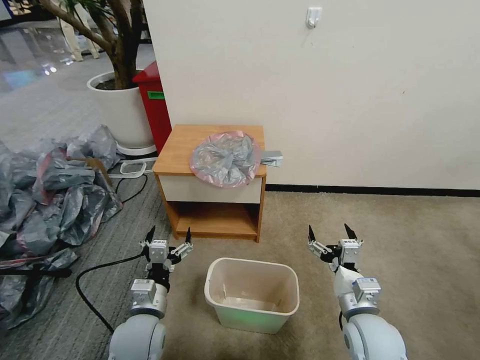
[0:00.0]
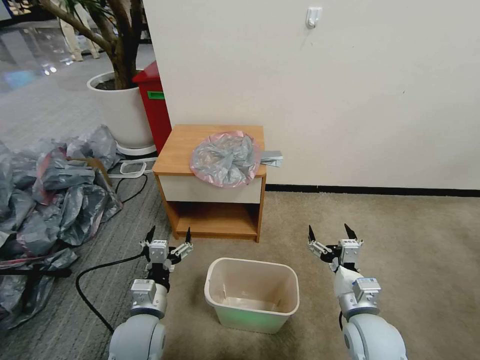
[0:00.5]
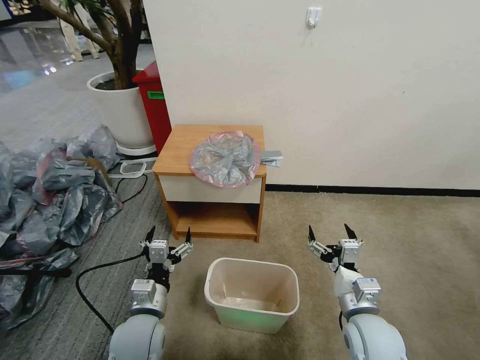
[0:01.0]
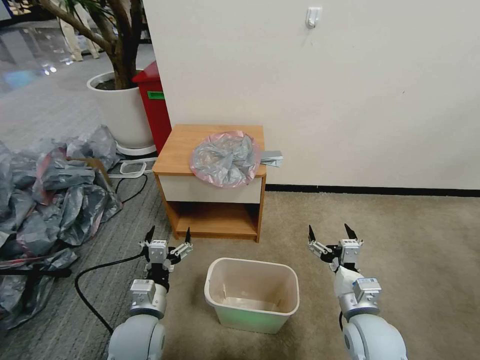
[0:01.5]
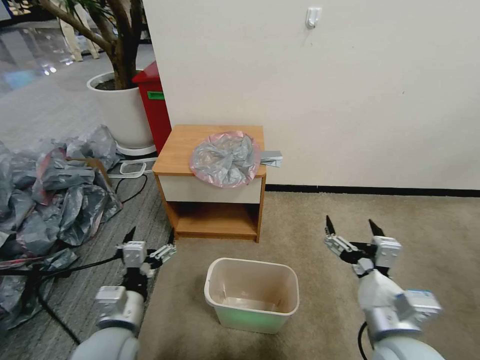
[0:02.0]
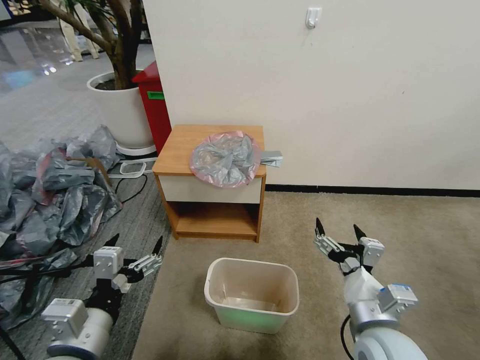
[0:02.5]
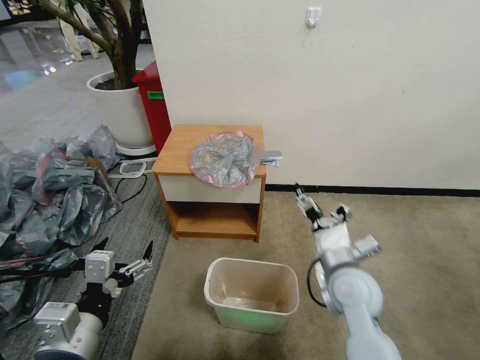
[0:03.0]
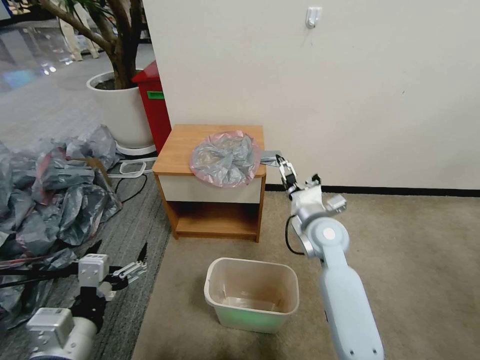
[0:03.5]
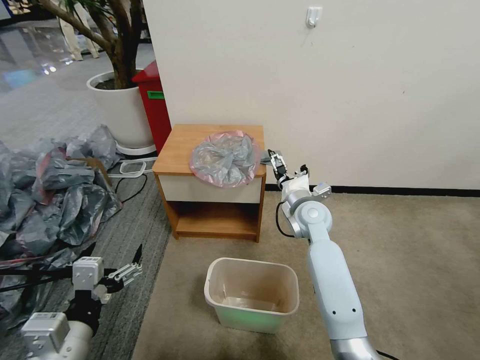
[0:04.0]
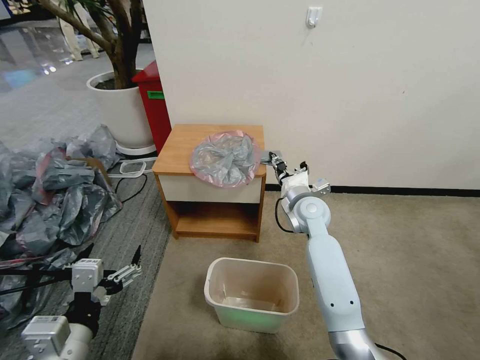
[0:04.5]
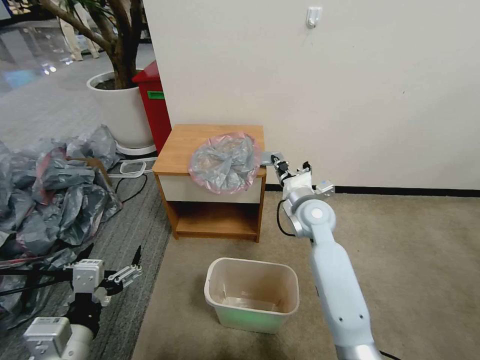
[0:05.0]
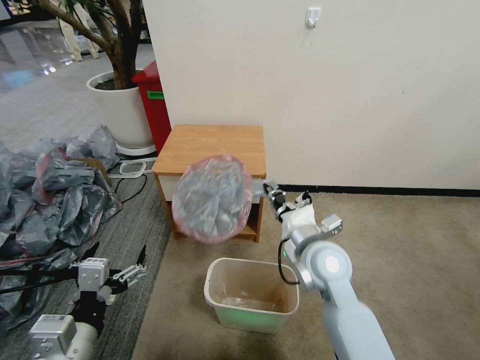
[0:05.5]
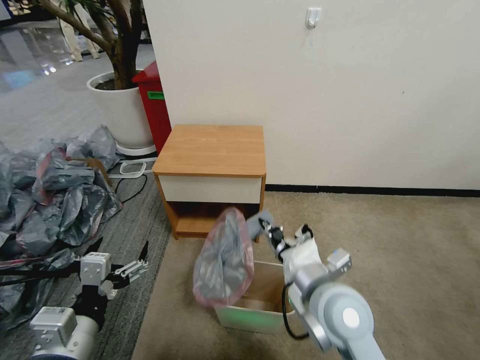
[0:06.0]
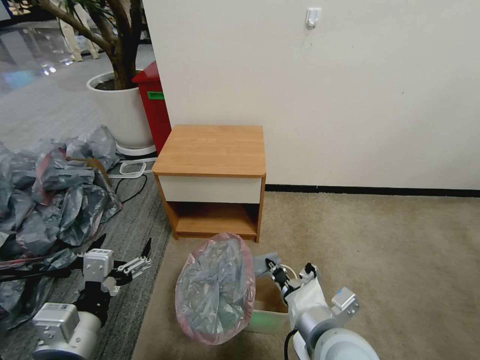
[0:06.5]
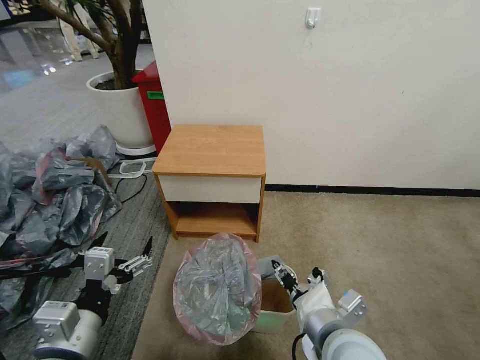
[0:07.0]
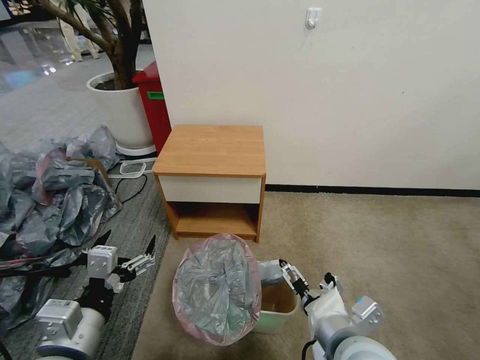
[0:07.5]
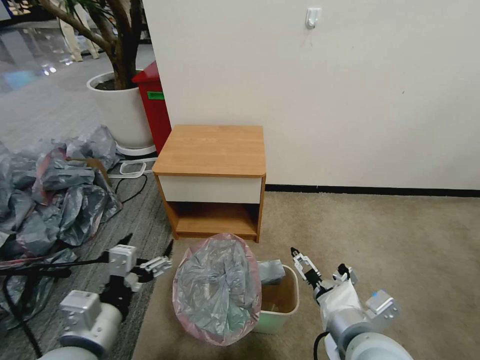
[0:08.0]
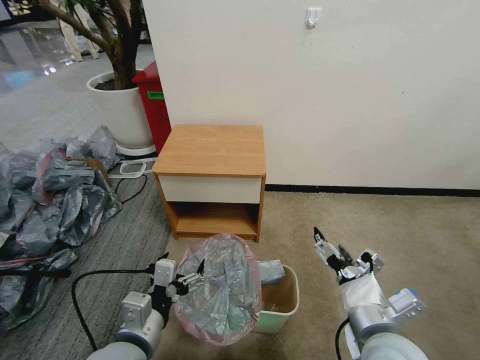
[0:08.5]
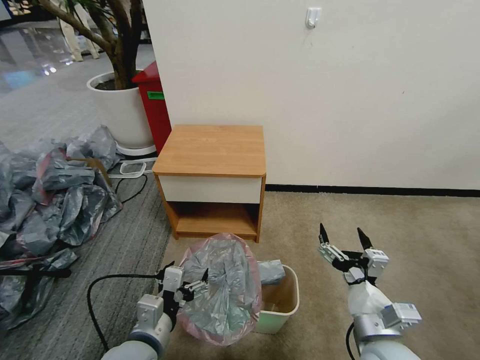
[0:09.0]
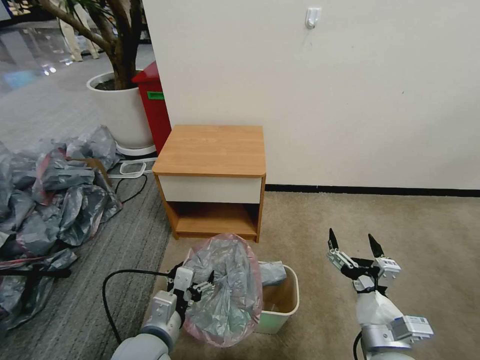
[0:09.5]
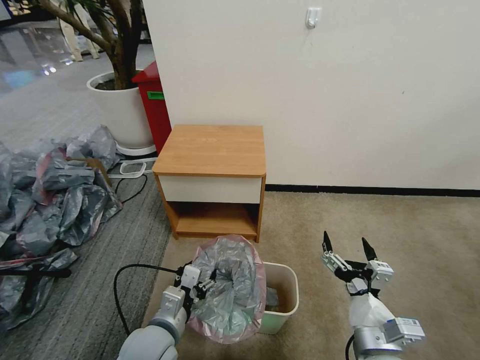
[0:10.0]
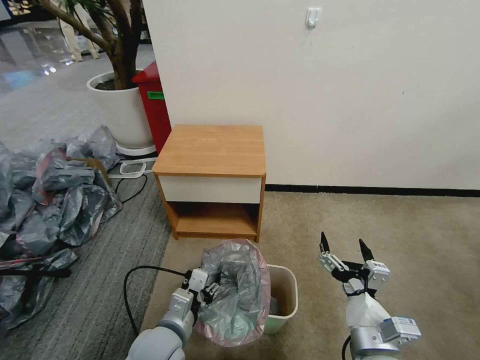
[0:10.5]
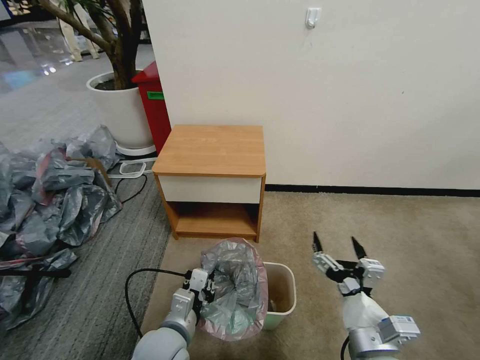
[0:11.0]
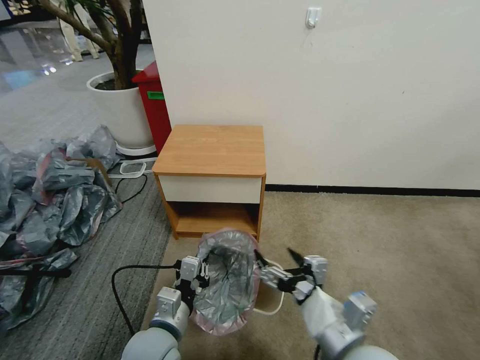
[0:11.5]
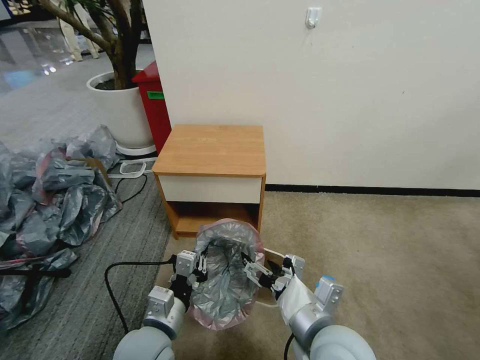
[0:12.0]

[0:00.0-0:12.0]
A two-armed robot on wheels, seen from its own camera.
Task of the whole recording: Pick up the garbage bag from the table and place it over the trash can.
0:02.0 to 0:04.0: The left gripper heads upward and backward, covering approximately 10 cm; the right gripper travels forward by about 30 cm.
0:04.0 to 0:06.0: The right gripper goes roughly 25 cm backward, and closes up.
0:06.0 to 0:08.0: The right gripper is displaced backward by some 5 cm, and opens up.
0:08.0 to 0:10.0: The right gripper travels downward by roughly 10 cm, while the left gripper travels downward, to the right and forward by approximately 15 cm.
0:10.0 to 0:12.0: The right gripper shifts approximately 10 cm to the left and upward. Meanwhile the left gripper closes its fingers.

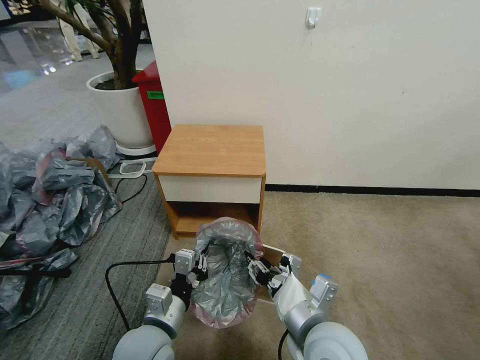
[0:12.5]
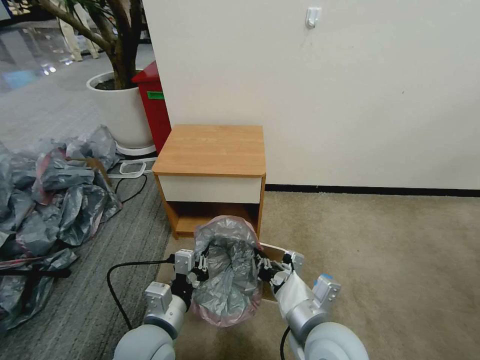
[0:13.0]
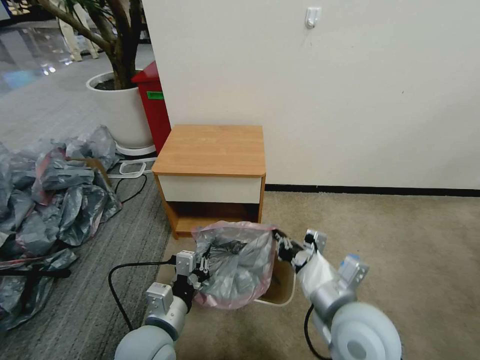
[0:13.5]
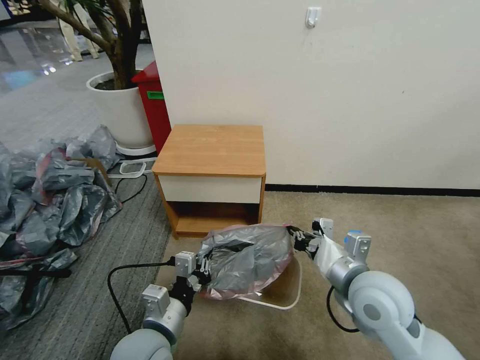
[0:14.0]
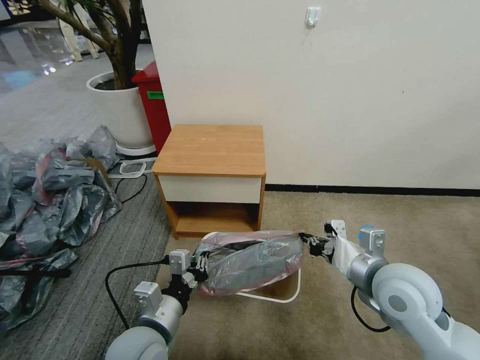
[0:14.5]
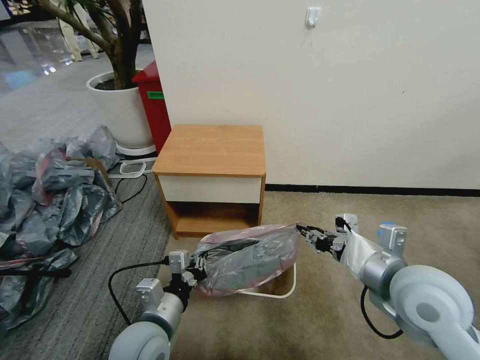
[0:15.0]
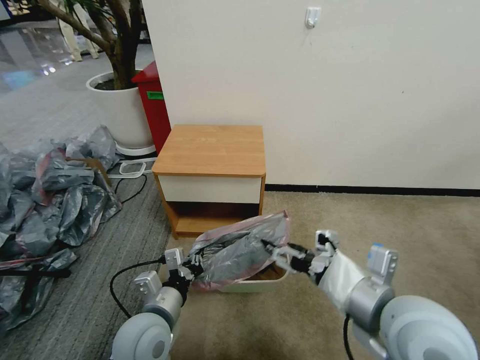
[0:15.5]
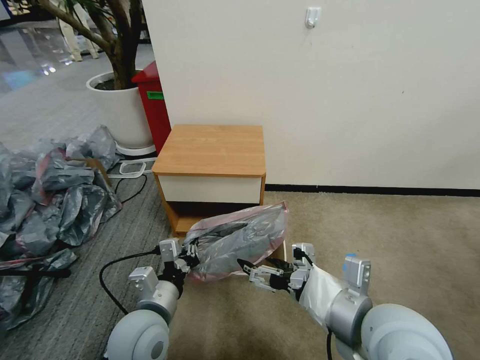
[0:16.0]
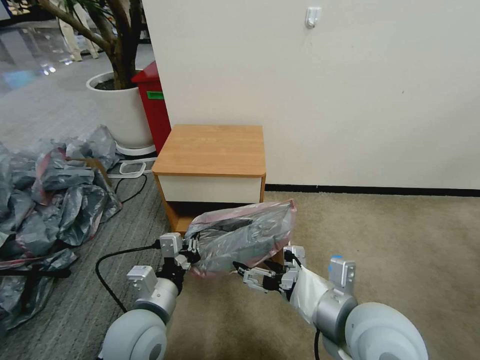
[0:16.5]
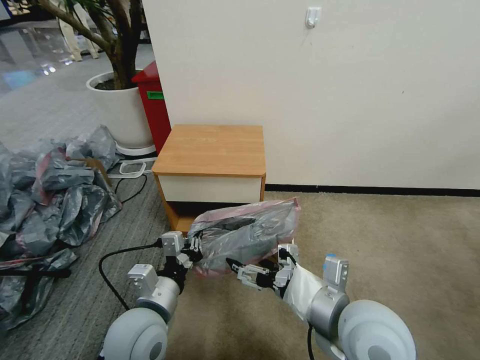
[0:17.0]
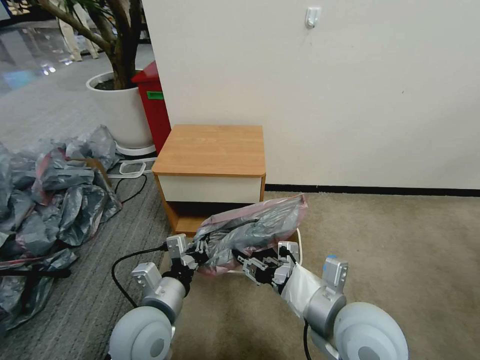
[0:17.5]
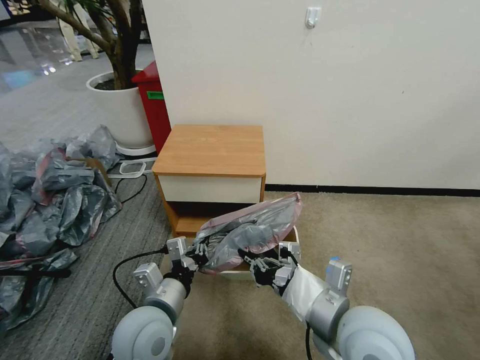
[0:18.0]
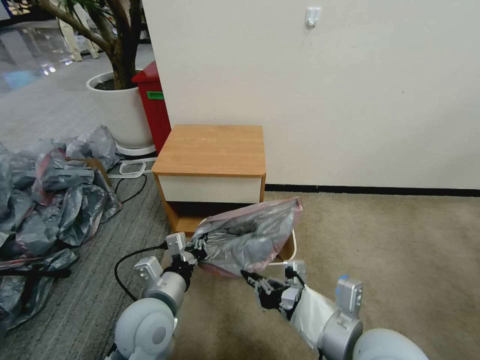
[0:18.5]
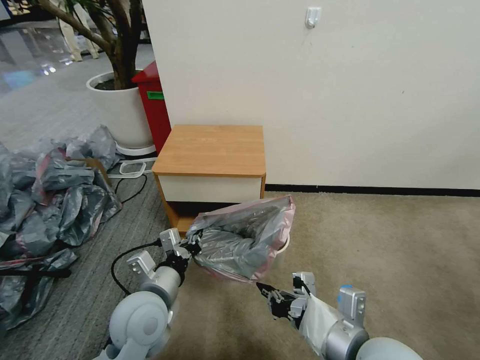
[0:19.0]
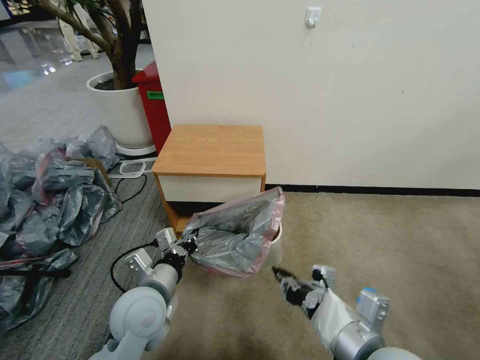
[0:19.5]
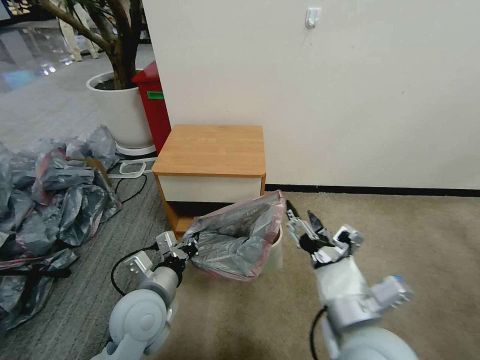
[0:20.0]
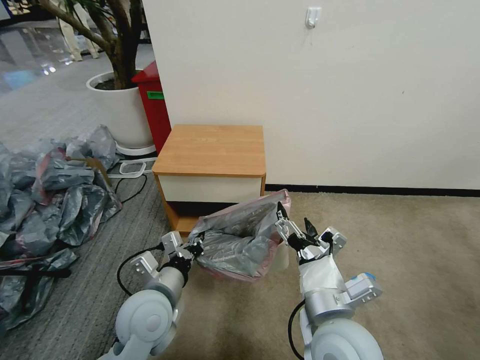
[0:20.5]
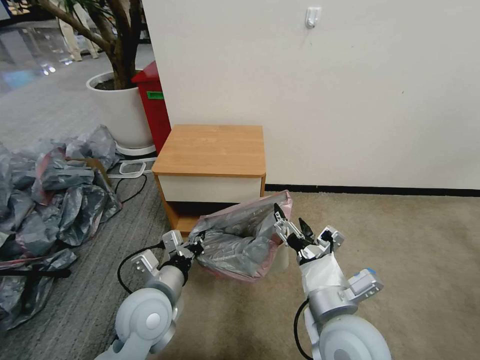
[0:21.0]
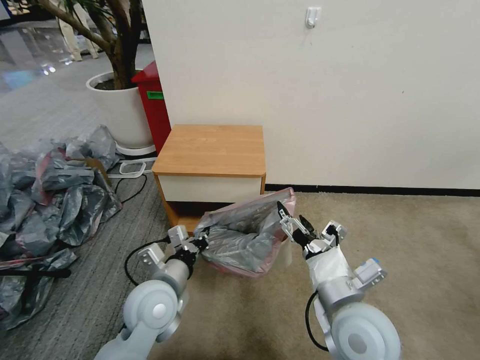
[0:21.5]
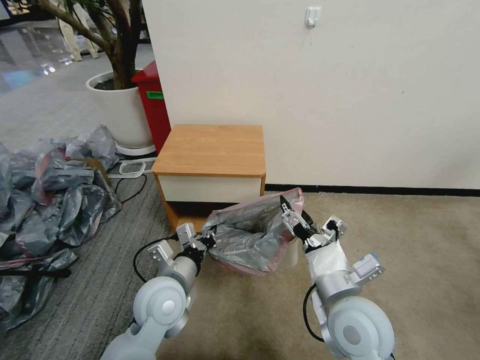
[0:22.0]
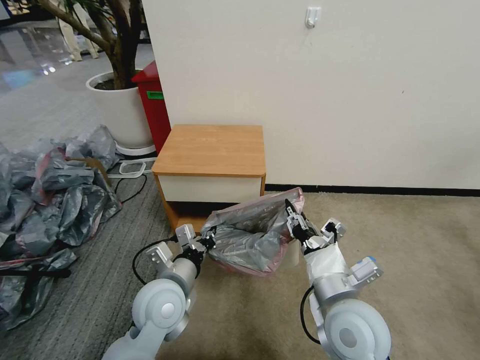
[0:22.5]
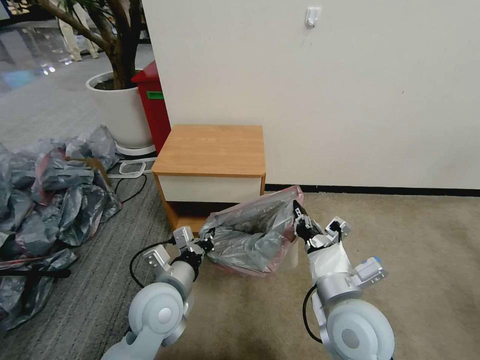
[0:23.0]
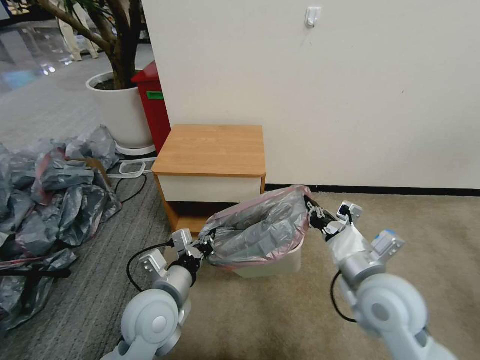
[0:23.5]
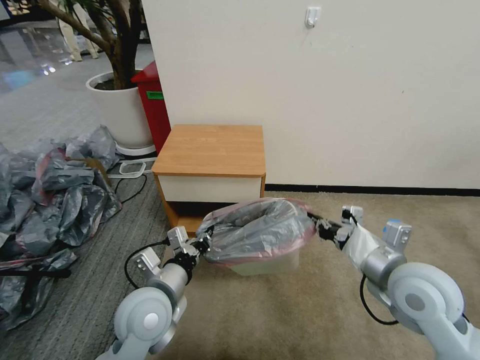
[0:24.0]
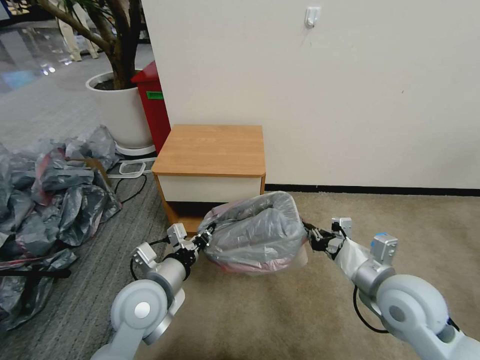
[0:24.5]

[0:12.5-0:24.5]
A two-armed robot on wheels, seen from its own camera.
Task of the whole recording: Pick up the garbage bag from the table and place it over the trash can.
0:12.5 to 0:14.5: The right gripper travels to the right and forward by roughly 15 cm, and closes.
0:14.5 to 0:16.5: The right gripper shifts approximately 10 cm to the left and backward, and opens its fingers.
0:16.5 to 0:18.5: The right gripper closes up.
0:18.5 to 0:20.5: The right gripper shifts by approximately 5 cm, and opens its fingers.
0:20.5 to 0:22.5: The right gripper changes place by some 5 cm, and closes its fingers.
0:22.5 to 0:24.5: The right gripper shifts about 10 cm to the right.

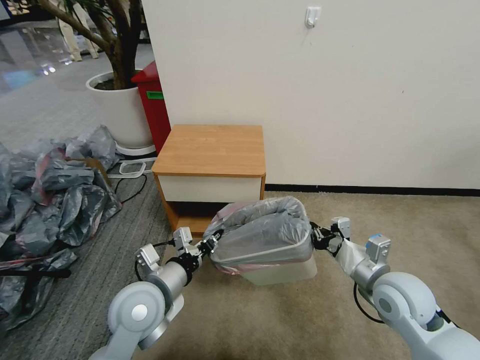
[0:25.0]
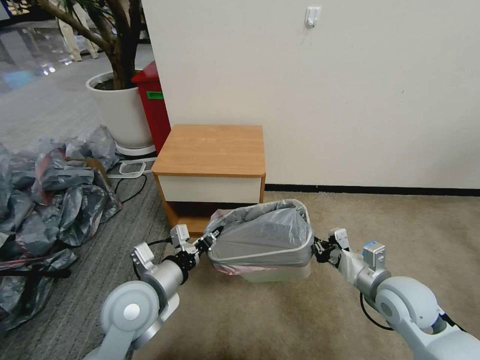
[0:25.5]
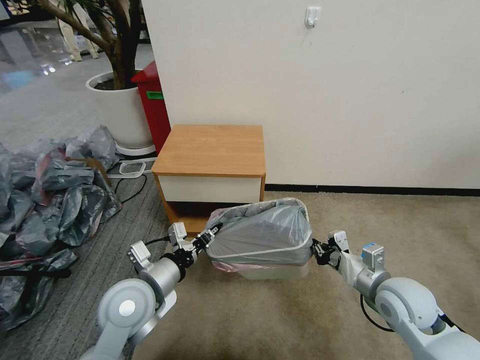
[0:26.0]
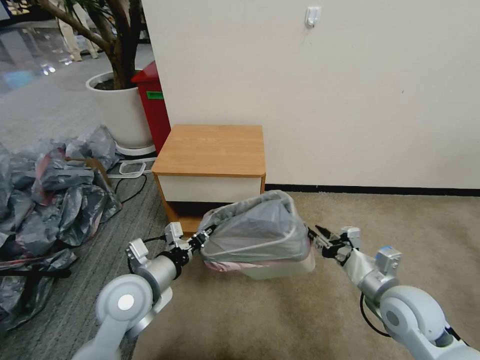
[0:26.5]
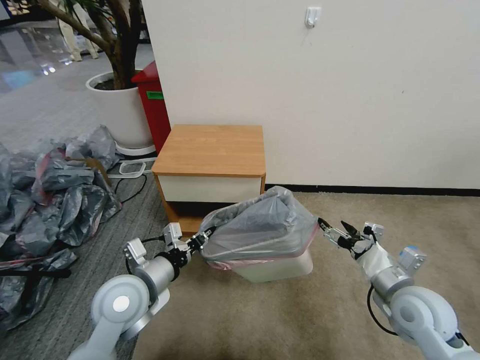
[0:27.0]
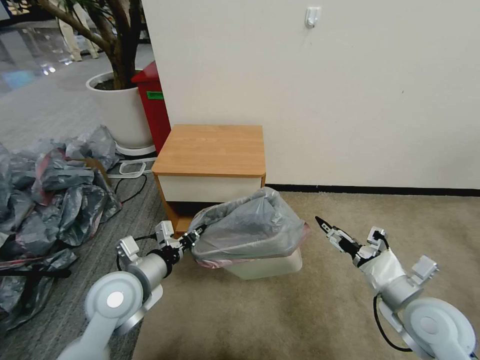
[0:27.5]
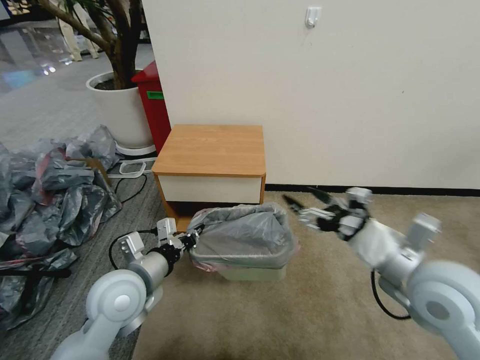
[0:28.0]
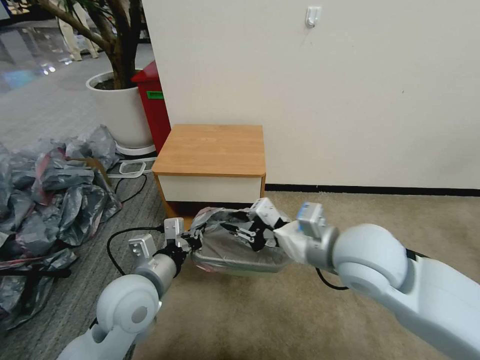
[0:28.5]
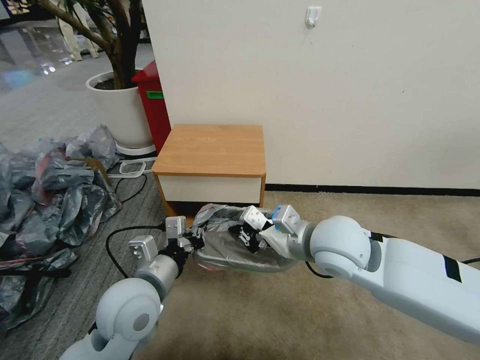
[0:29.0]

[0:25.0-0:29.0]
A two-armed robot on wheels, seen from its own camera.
Task of the whole recording: Pick up the garbage bag from the table and place it over the trash can.
0:25.0 to 0:27.0: The right gripper opens.
0:27.0 to 0:29.0: The right gripper heads to the left and upward, covering about 20 cm, and closes.
